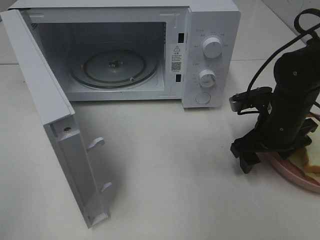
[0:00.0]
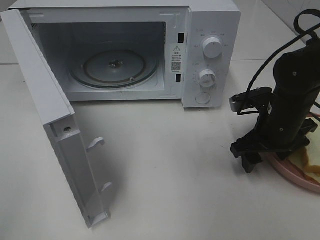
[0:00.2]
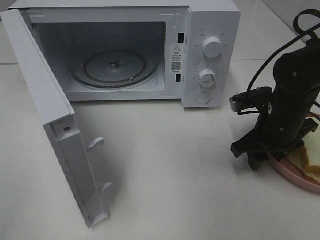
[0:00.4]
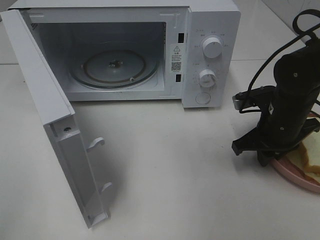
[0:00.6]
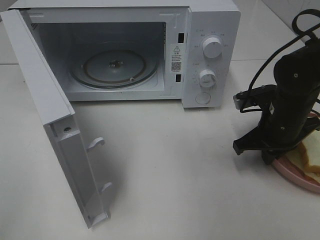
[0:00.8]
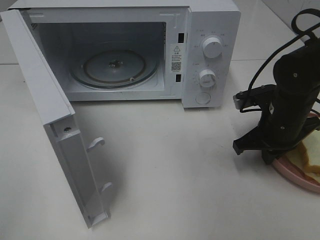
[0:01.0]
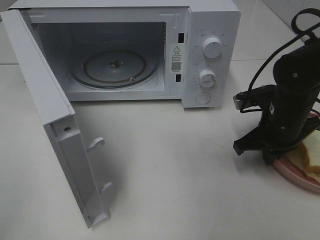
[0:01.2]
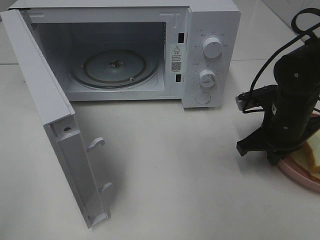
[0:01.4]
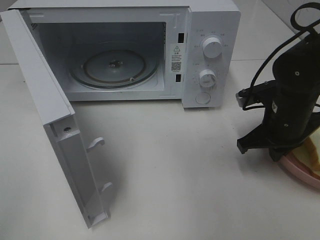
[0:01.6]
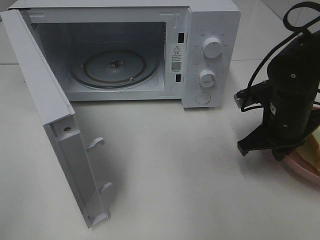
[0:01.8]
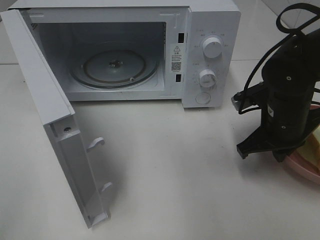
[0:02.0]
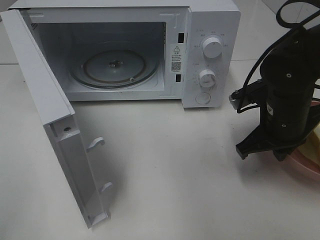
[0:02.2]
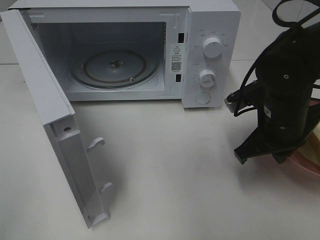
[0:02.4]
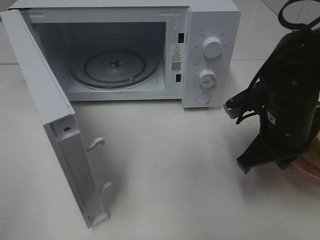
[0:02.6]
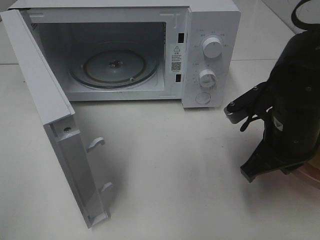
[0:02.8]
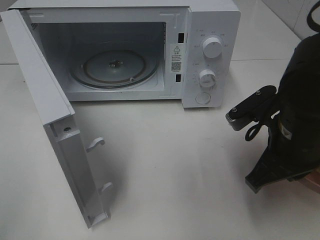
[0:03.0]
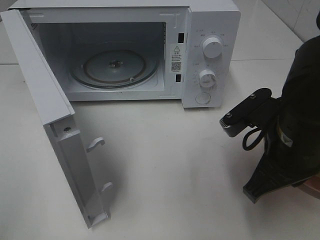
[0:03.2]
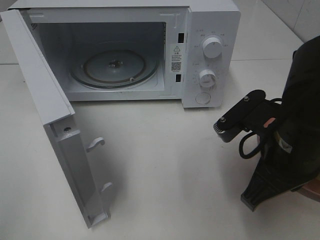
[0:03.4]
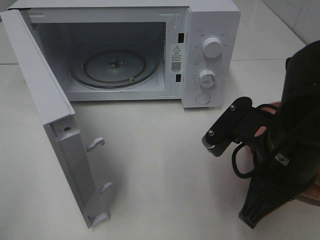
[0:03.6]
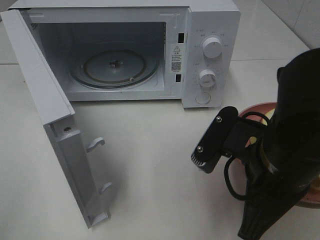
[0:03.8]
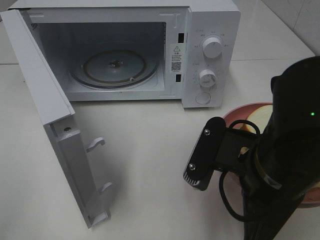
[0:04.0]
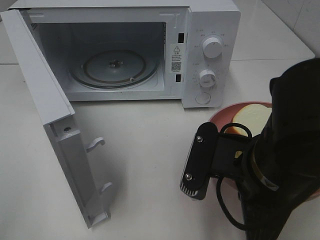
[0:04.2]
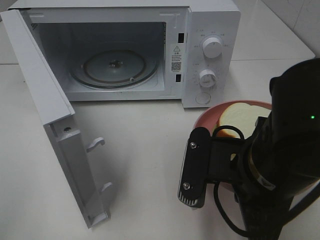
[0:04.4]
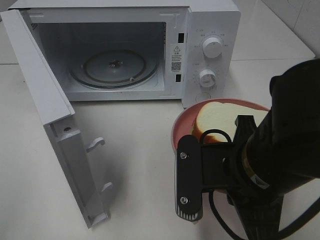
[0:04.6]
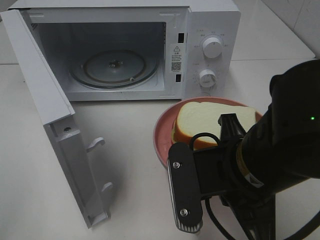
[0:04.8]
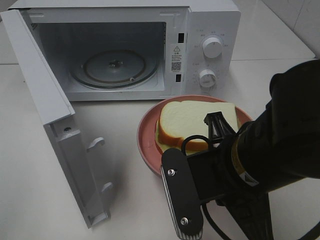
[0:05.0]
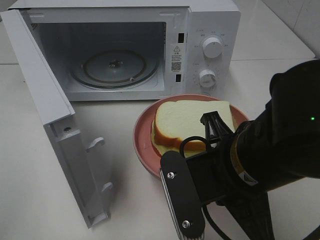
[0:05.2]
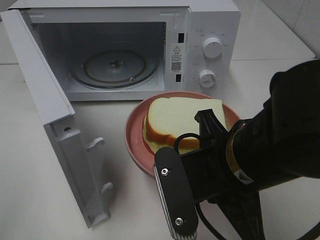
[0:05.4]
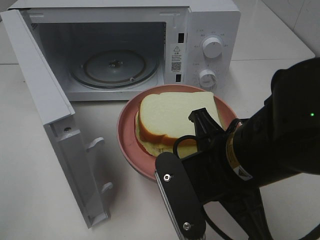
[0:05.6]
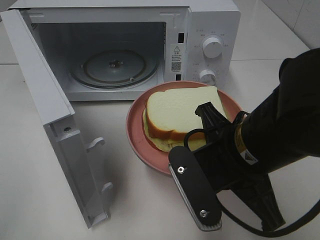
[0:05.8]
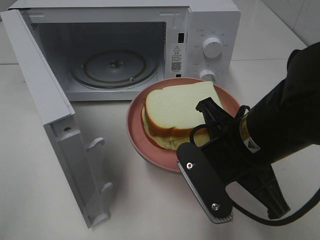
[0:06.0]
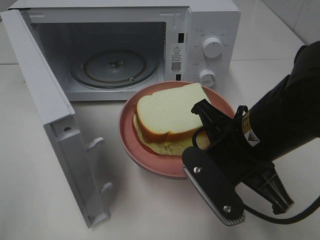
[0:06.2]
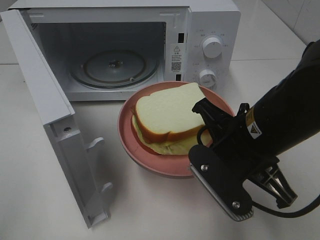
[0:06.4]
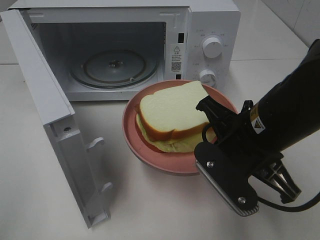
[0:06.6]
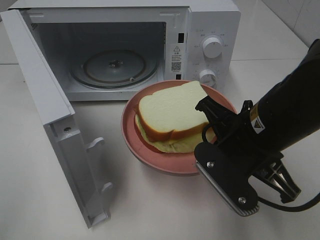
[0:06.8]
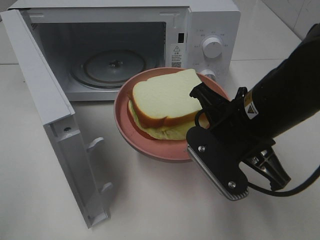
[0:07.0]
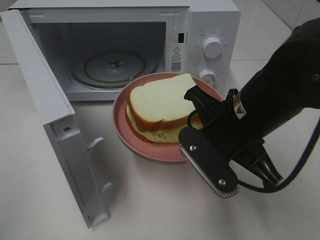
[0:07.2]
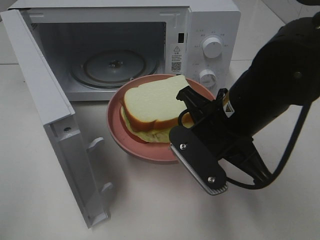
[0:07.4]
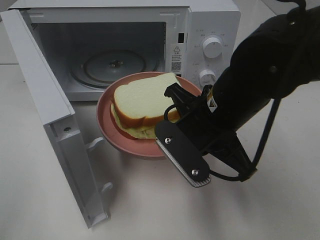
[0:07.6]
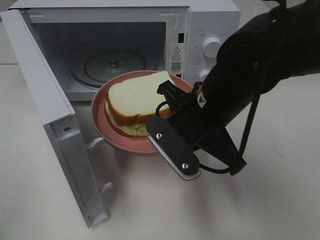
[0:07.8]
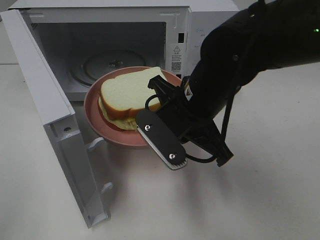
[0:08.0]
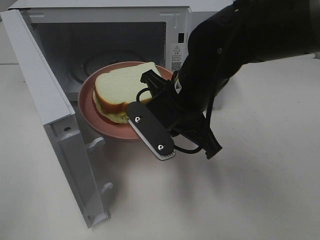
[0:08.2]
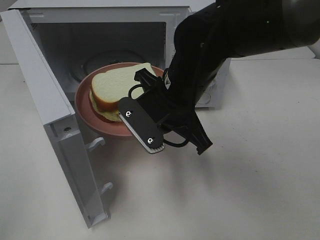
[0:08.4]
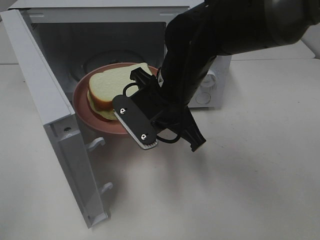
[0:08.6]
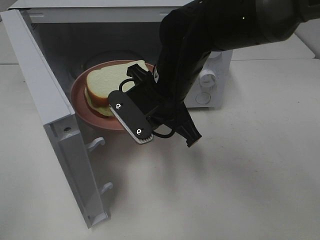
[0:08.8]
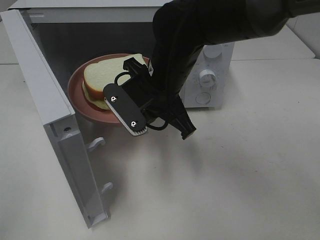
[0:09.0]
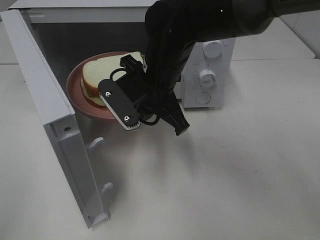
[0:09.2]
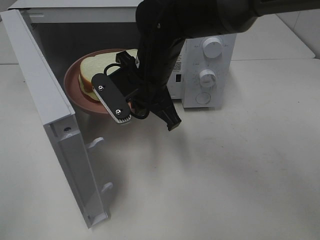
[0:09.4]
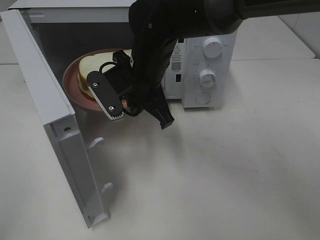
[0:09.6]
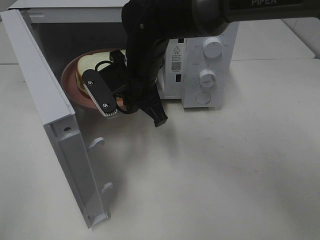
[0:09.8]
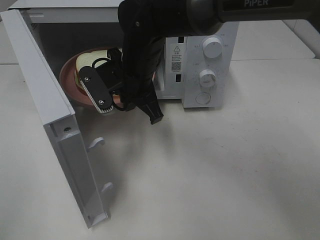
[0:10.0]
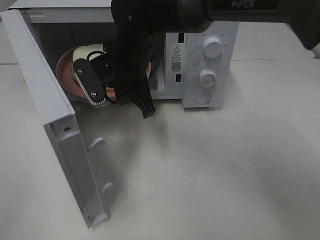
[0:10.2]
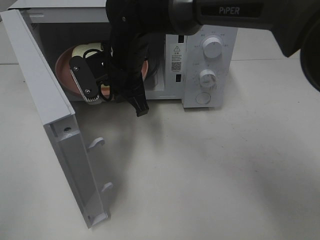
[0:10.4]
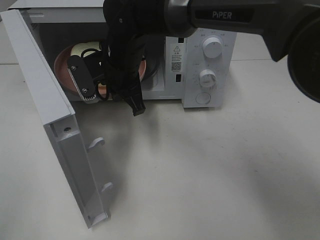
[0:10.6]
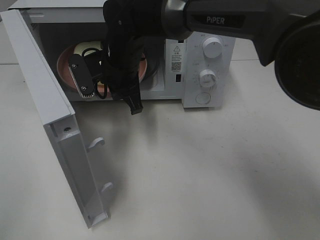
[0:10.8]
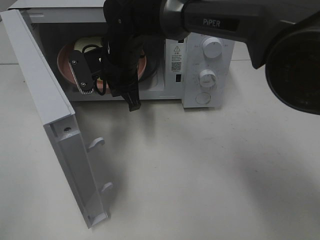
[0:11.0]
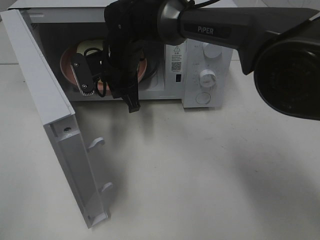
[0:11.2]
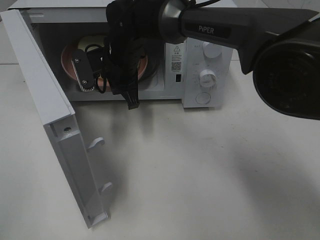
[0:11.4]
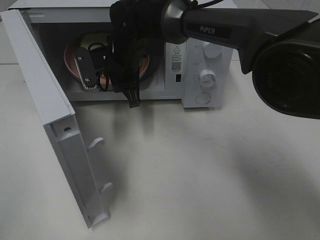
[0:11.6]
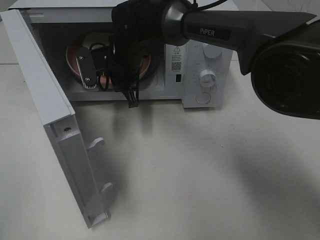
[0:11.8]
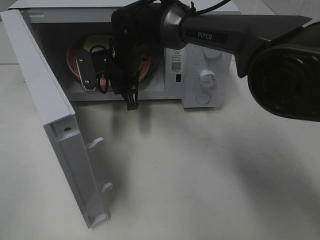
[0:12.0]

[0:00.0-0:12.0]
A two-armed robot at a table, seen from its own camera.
Task of the whole recording: Heat Sandwich.
0:00.0 to 0:01.6: The right gripper closes.
0:01.6 to 0:03.0: The right gripper goes approximately 10 cm backward.
0:03.0 to 0:04.4: The right gripper travels backward and to the left by roughly 10 cm.
0:06.0 to 0:07.6: The right gripper moves roughly 5 cm.
0:07.6 to 0:09.0: The right gripper goes approximately 10 cm forward and to the left.
0:09.0 to 0:10.4: The right gripper travels forward and to the left by some 10 cm.
0:10.4 to 0:12.0: The right gripper travels forward by some 5 cm.

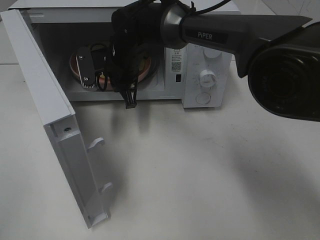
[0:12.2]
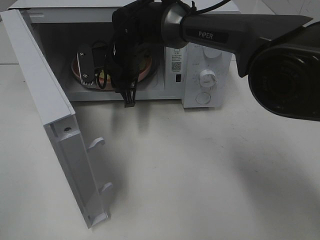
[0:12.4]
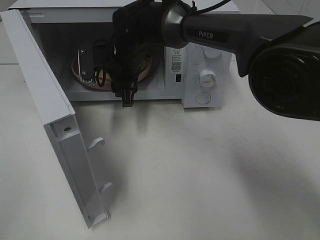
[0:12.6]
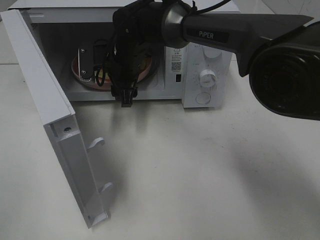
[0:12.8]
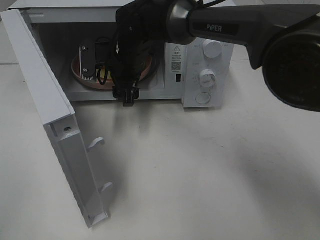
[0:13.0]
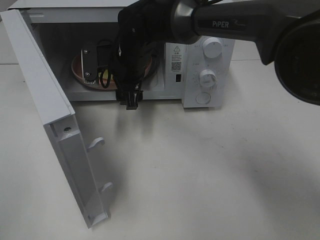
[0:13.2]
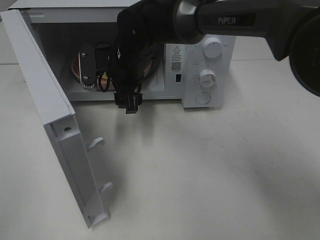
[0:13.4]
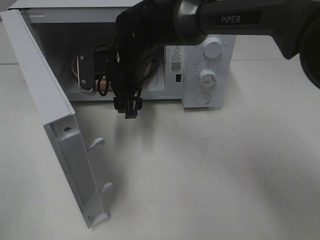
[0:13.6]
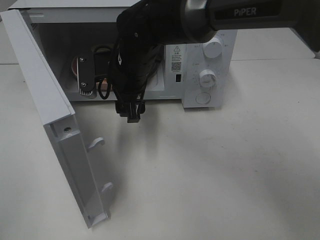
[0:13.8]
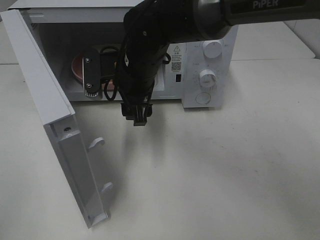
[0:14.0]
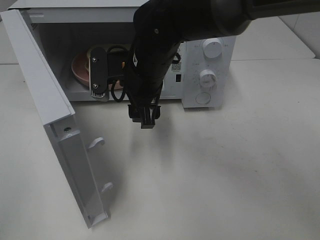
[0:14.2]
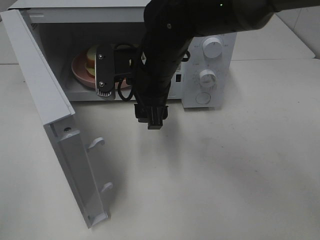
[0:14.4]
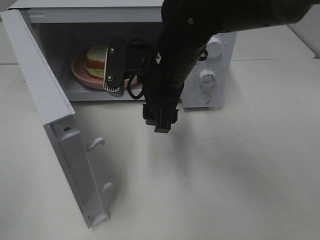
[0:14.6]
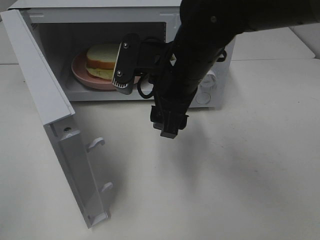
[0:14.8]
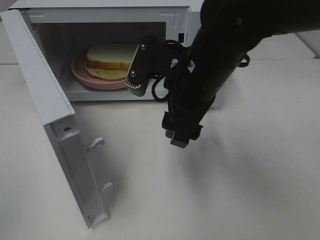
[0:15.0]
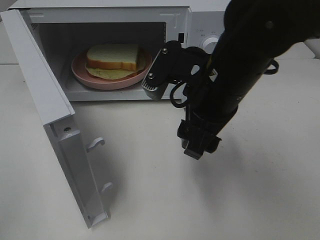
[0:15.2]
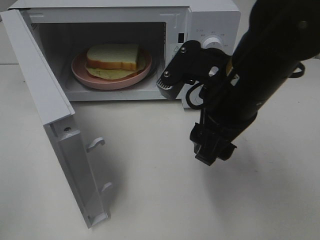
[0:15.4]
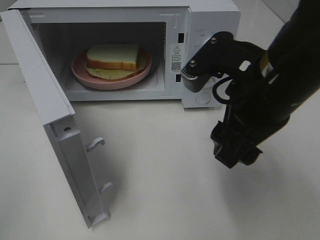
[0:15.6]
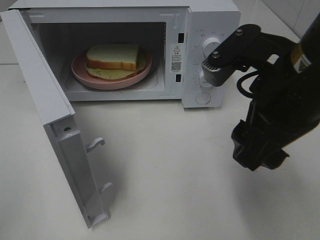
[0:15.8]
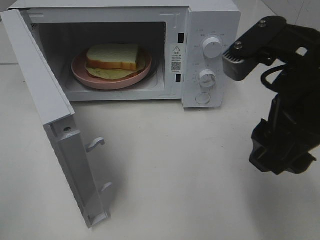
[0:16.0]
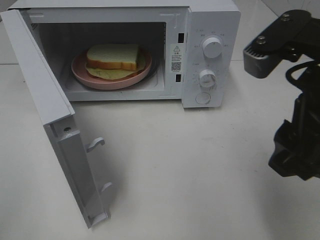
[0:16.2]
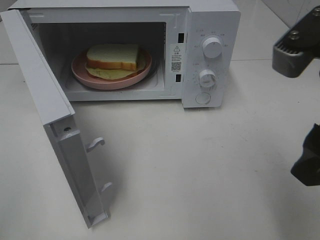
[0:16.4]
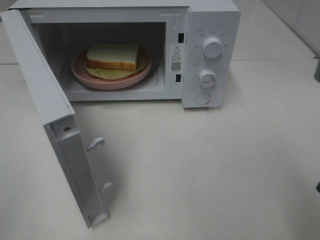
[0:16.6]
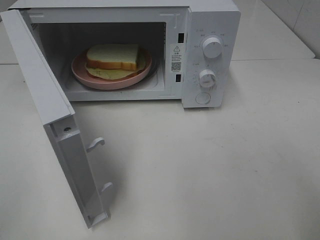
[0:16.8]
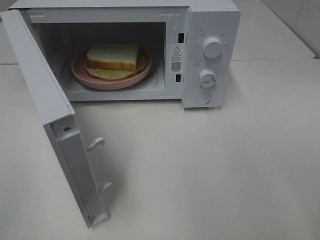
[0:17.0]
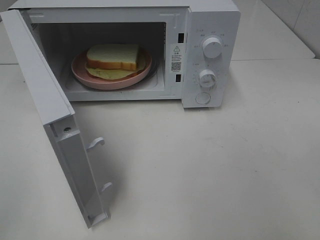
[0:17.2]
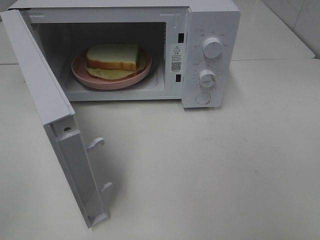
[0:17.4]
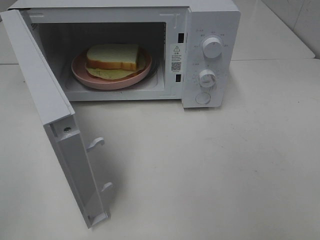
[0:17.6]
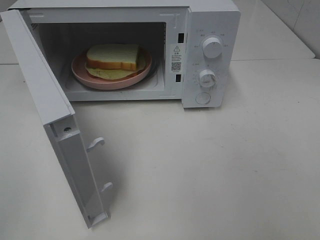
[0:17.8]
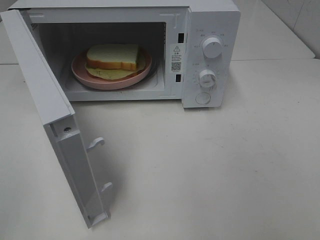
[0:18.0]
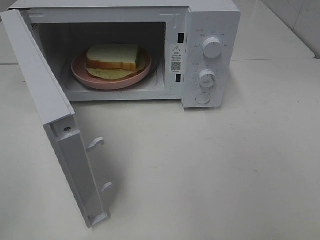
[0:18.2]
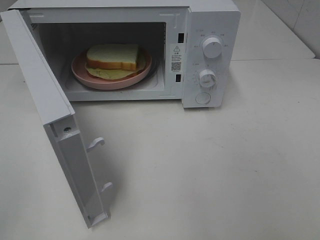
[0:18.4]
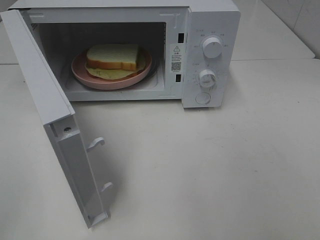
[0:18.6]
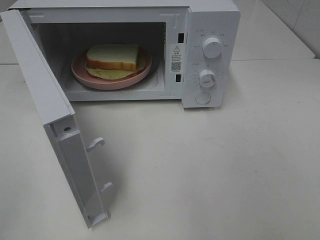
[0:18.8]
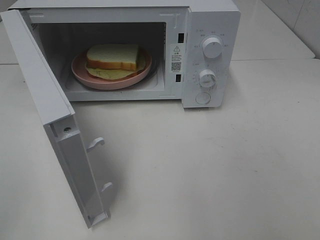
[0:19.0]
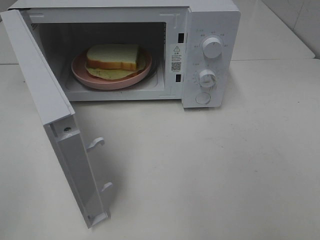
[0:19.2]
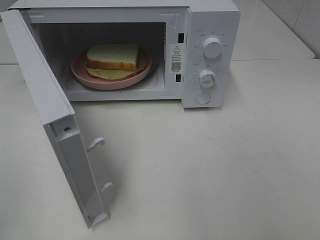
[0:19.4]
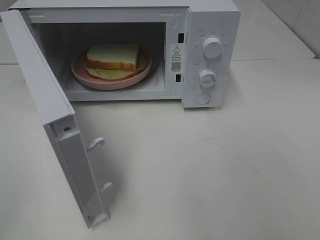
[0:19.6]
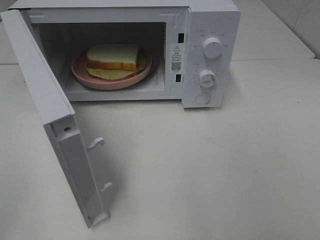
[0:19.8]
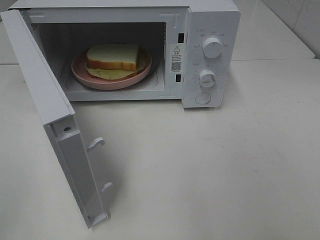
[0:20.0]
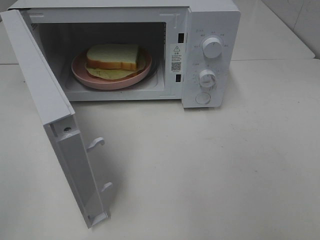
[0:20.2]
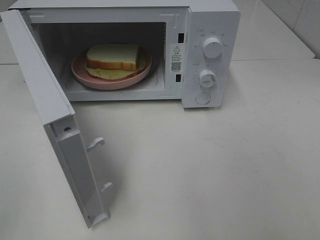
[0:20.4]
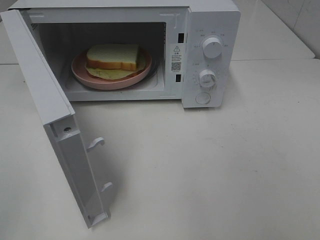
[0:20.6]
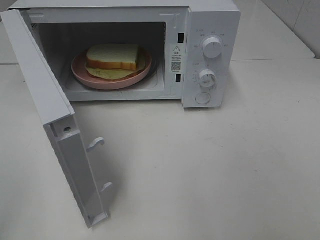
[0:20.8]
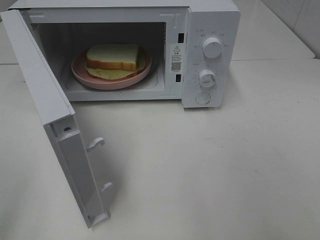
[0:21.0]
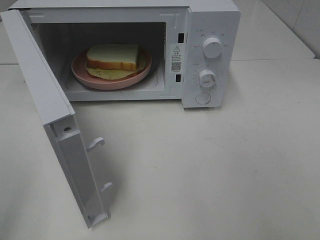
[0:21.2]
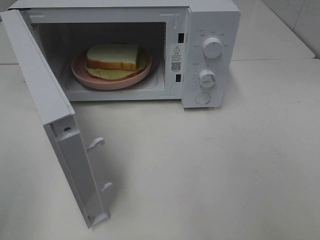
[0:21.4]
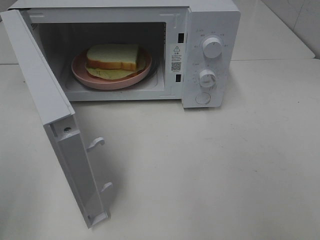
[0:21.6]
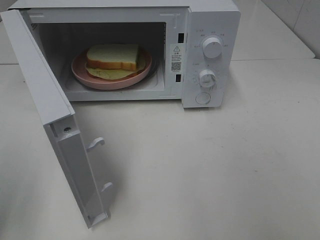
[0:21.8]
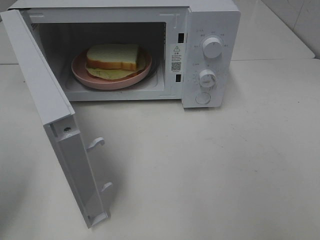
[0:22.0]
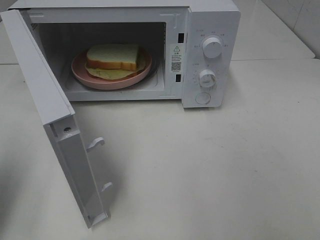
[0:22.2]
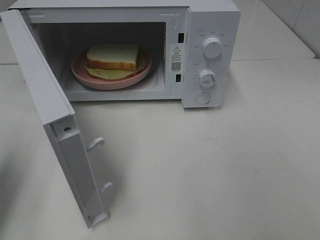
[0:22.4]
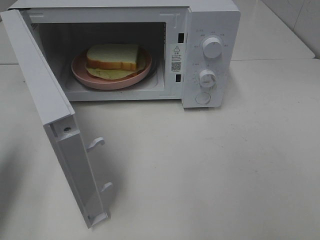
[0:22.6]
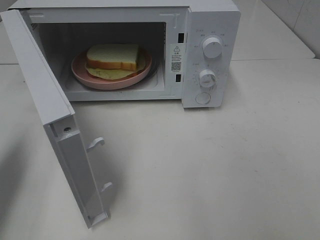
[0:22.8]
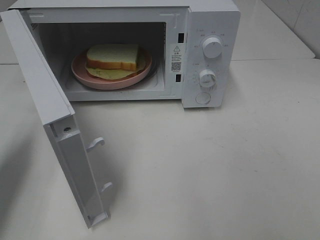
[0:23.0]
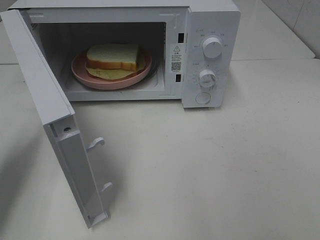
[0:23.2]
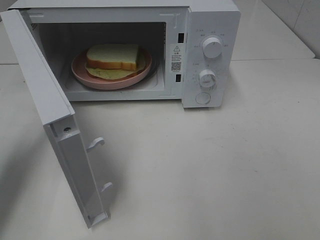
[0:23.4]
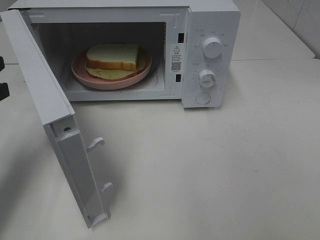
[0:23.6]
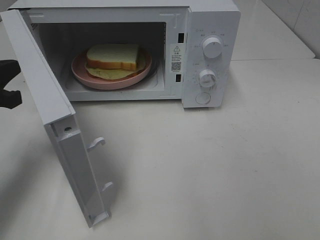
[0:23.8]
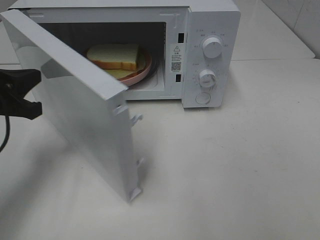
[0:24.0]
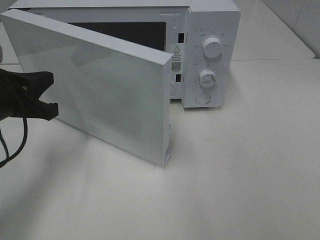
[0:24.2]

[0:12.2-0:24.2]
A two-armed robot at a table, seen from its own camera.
Task of the whole recording: Heat Sandwich.
Step, 0:12.2 to 0:14.2: Right hand: place the plate in the microwave.
0:12.2 to 0:13.8: The right gripper shifts some 5 cm backward, and opens its fingers.
0:13.8 to 0:15.2: The right gripper is displaced backward, to the right and upward by approximately 20 cm.
0:15.2 to 0:16.6: The right gripper heads backward, to the right and upward, covering some 20 cm.
0:16.6 to 0:18.2: The right gripper shifts approximately 15 cm backward and to the right.
0:21.2 to 0:22.6: The left gripper is displaced forward and downward by approximately 15 cm, and closes its fingers.
0:22.6 to 0:24.2: The left gripper goes approximately 15 cm to the right, downward and forward.
